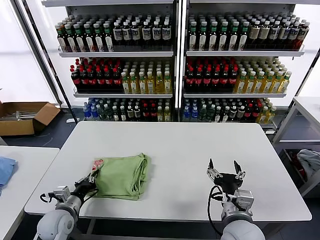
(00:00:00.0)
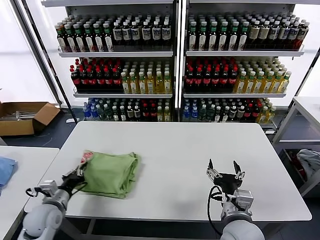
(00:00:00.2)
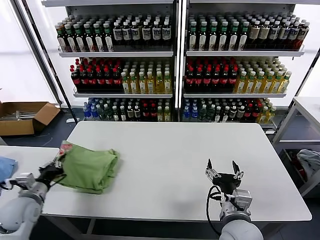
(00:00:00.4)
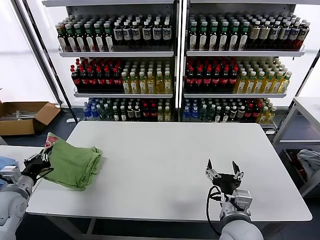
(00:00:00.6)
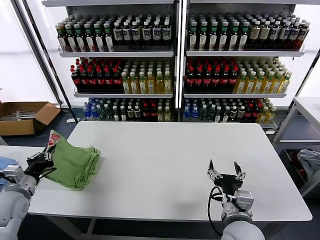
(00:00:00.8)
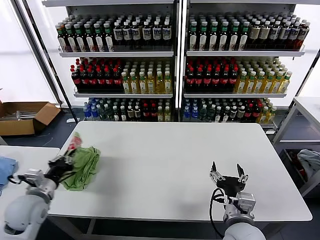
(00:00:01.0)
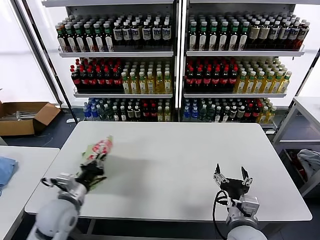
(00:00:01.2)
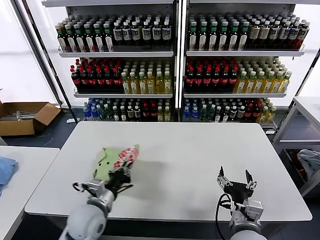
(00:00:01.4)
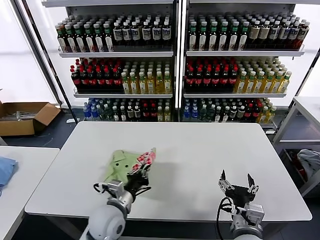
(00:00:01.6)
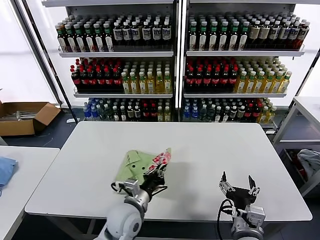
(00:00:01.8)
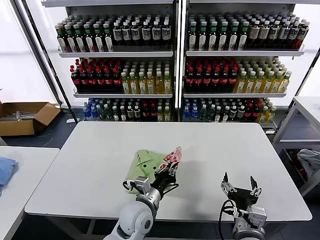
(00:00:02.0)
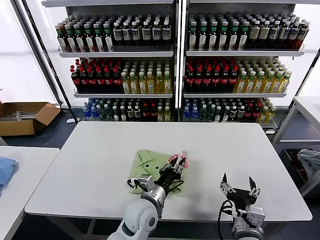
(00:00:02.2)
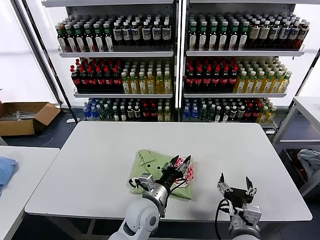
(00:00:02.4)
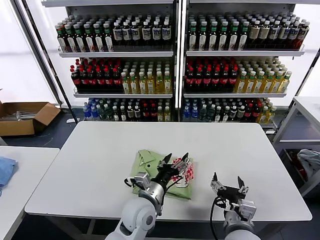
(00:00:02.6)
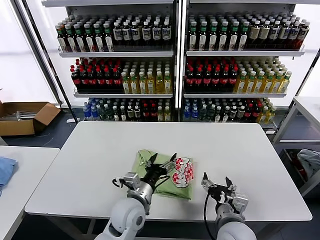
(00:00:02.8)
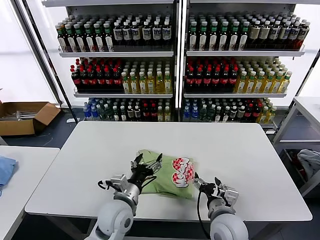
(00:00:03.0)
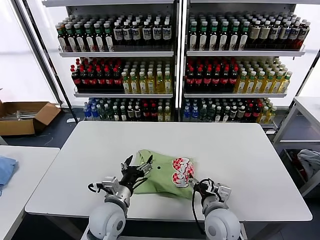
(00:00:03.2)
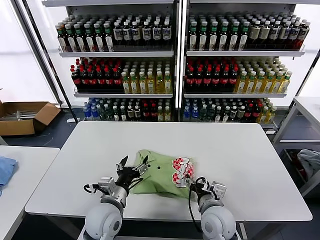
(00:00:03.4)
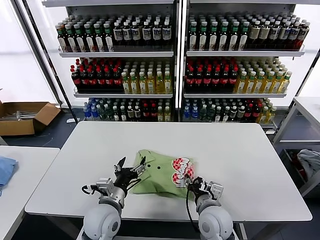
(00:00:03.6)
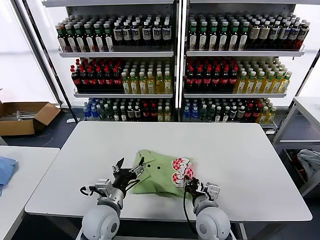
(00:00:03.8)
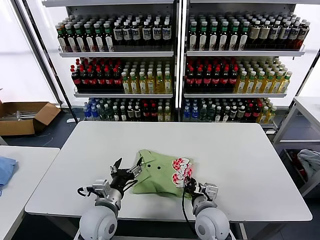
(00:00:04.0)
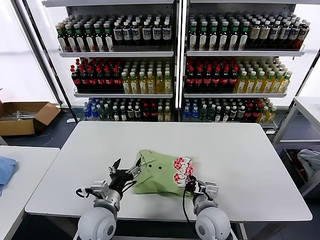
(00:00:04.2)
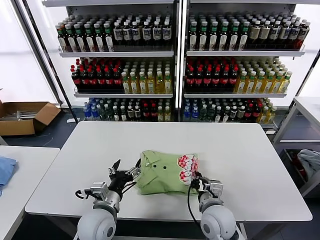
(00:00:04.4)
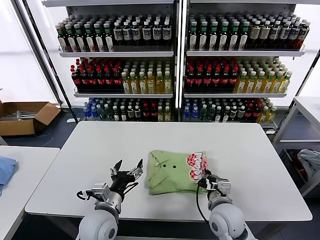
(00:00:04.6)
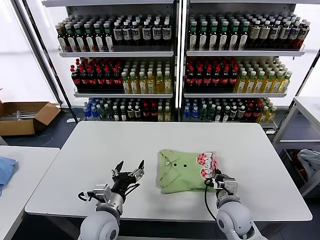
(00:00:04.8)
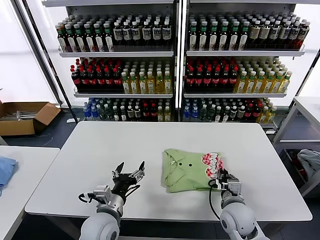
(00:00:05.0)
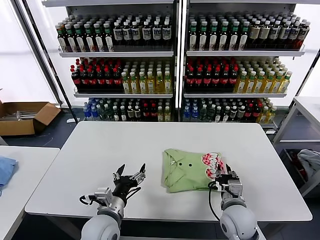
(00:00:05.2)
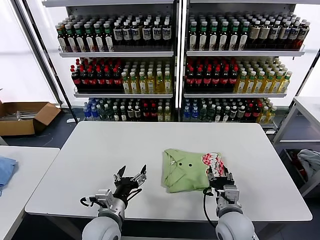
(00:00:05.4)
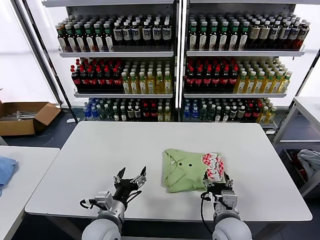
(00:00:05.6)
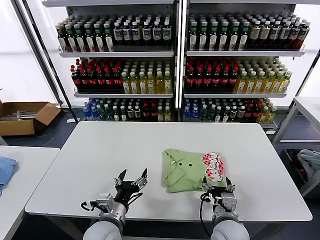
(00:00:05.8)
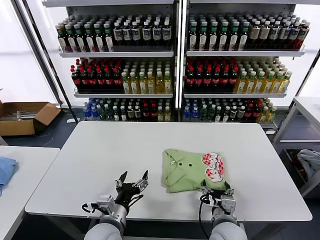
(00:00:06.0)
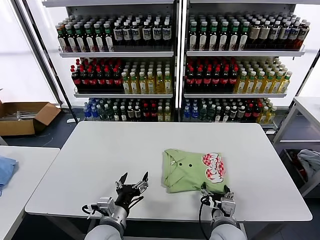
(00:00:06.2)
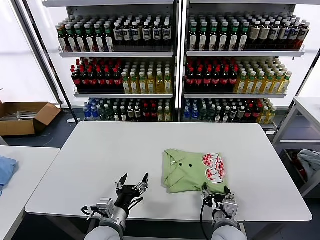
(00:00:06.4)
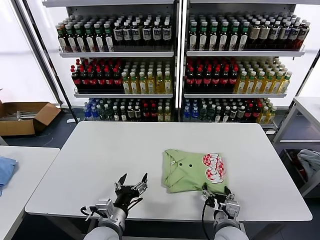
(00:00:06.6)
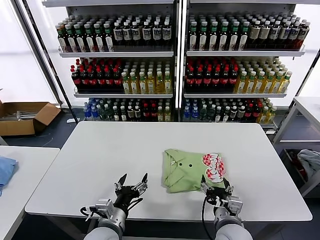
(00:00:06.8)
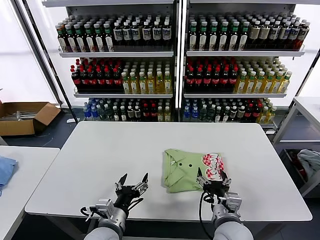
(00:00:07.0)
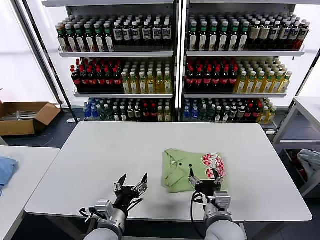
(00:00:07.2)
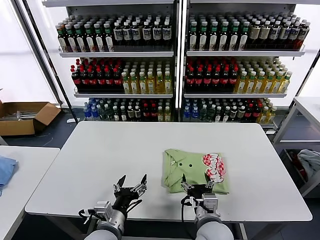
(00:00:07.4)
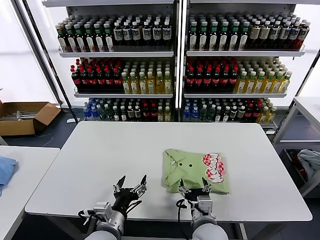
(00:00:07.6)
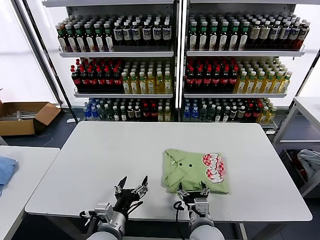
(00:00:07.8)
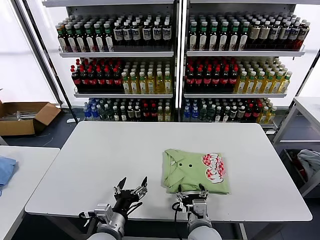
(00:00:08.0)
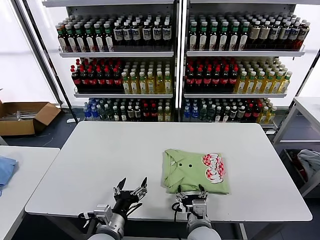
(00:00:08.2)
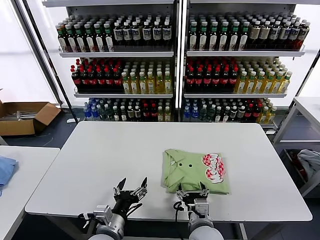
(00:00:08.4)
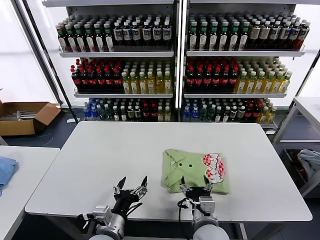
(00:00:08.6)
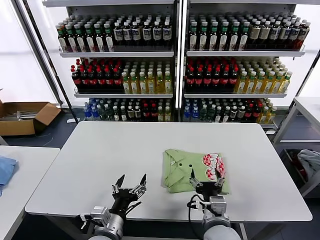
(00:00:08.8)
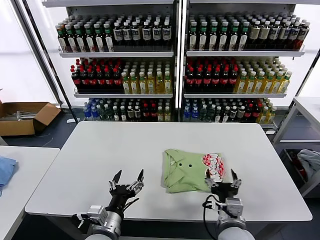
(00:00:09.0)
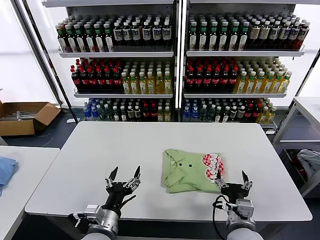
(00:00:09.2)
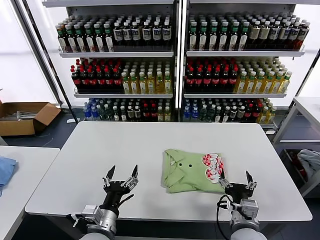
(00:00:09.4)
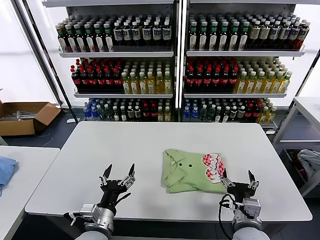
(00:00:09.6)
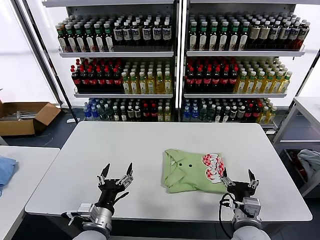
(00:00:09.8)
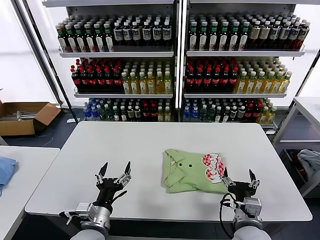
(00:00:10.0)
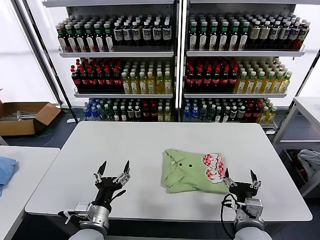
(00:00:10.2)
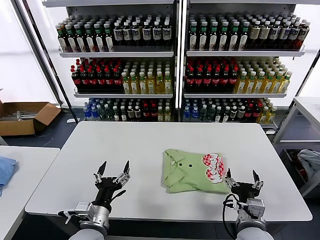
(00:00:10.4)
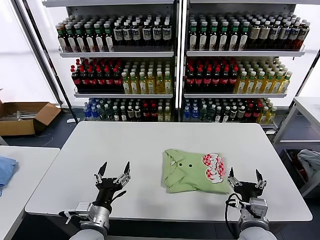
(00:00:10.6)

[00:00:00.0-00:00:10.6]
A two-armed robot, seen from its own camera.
Task of the whole recording: fold and organize the clothes.
Step, 00:00:00.0 to 00:00:02.2: Flip the folded clothes over with left gripper.
Step, 00:00:02.4 to 00:00:08.6: Drag the clothes to the center of the table.
00:00:00.0 to 00:00:01.6: The left gripper is displaced to the right by some 15 cm.
00:00:01.6 to 00:00:03.0: The left gripper opens its fingers; the right gripper goes roughly 5 cm forward.
00:00:03.0 to 00:00:04.6: The left gripper shifts some 5 cm to the left; the right gripper closes its fingers.
00:00:04.6 to 00:00:06.0: The right gripper opens.
00:00:06.0 to 00:00:07.6: The right gripper moves to the left, about 5 cm.
00:00:07.6 to 00:00:09.0: The right gripper changes place by approximately 5 cm.
00:00:09.0 to 00:00:10.6: The right gripper moves to the right, roughly 5 cm.
